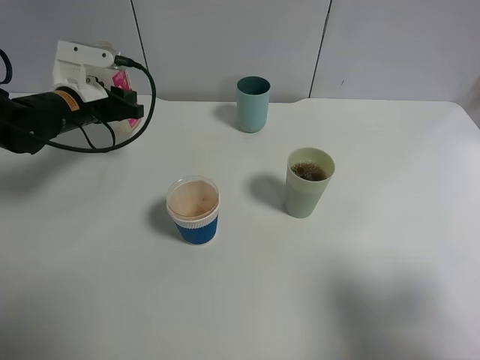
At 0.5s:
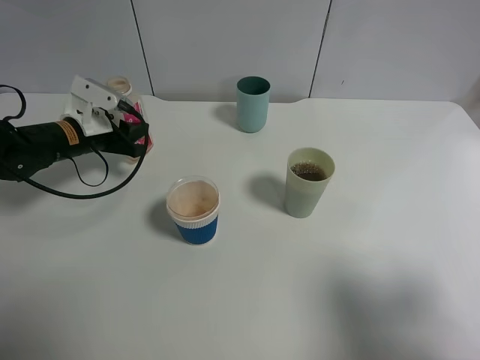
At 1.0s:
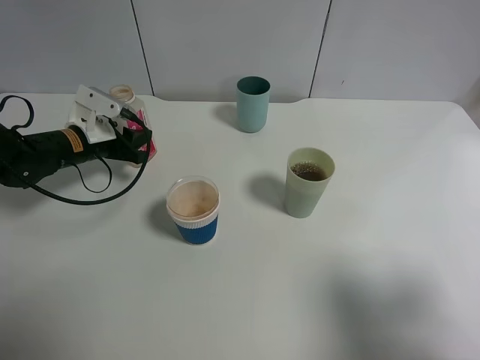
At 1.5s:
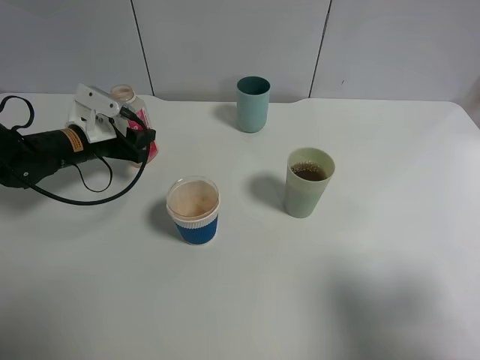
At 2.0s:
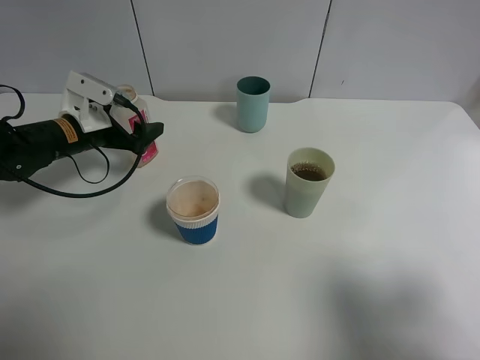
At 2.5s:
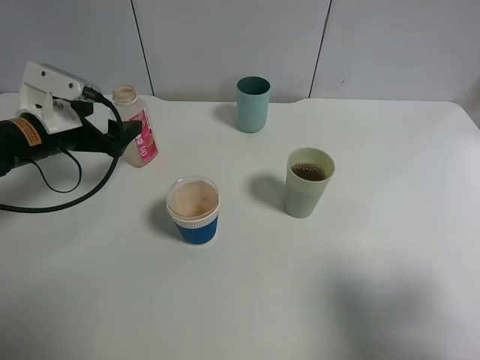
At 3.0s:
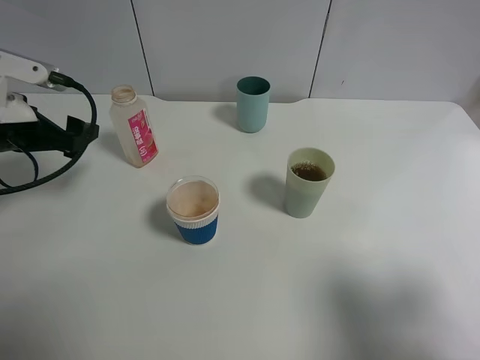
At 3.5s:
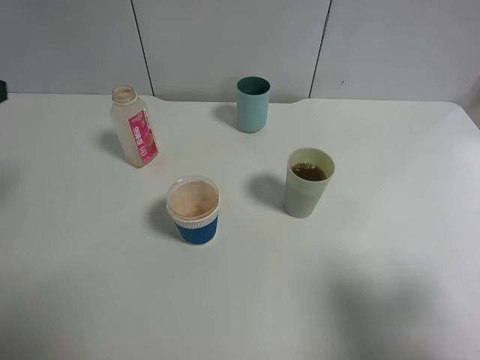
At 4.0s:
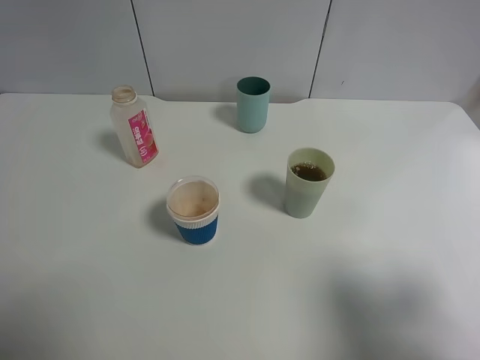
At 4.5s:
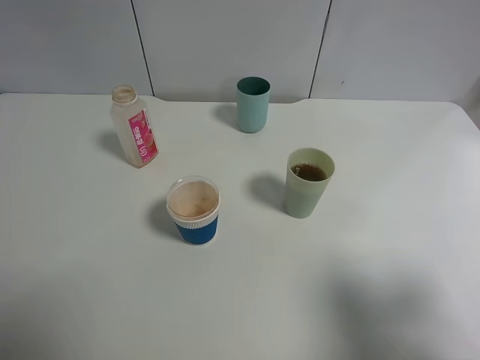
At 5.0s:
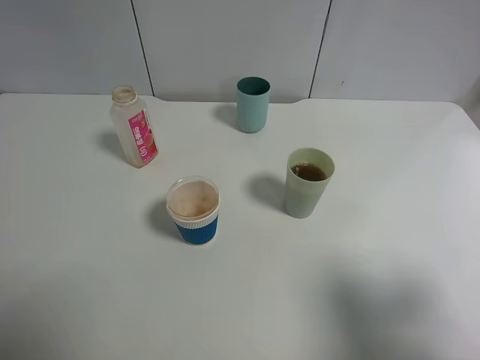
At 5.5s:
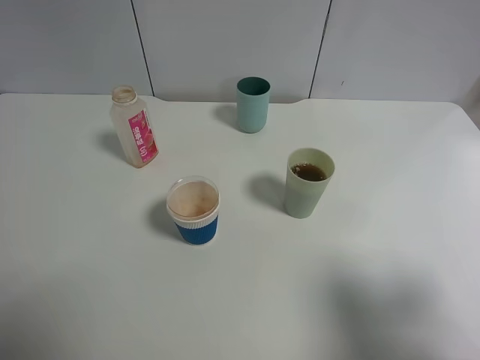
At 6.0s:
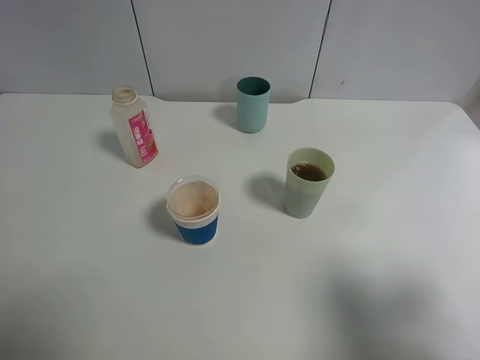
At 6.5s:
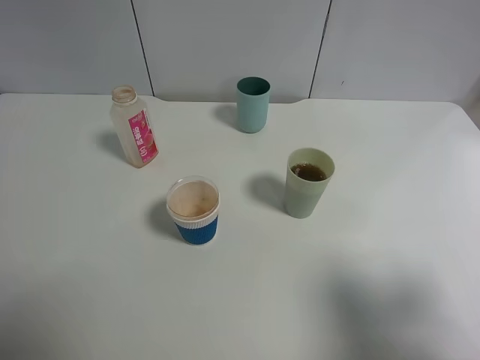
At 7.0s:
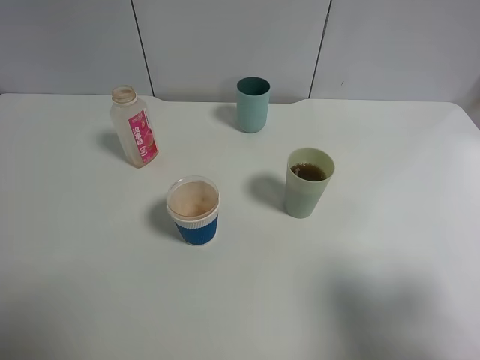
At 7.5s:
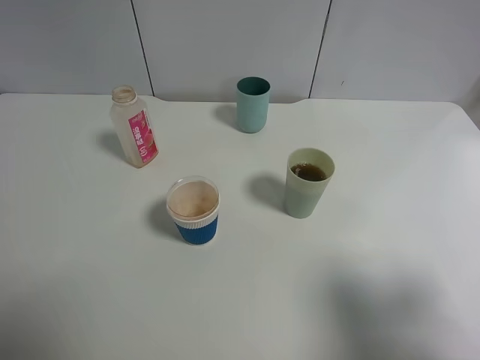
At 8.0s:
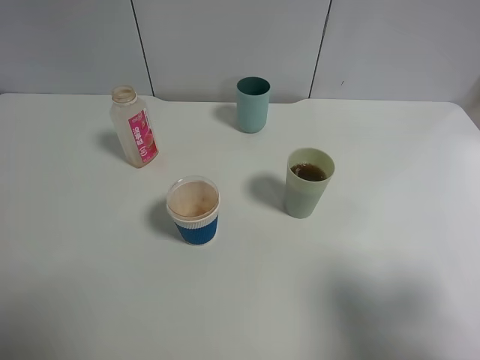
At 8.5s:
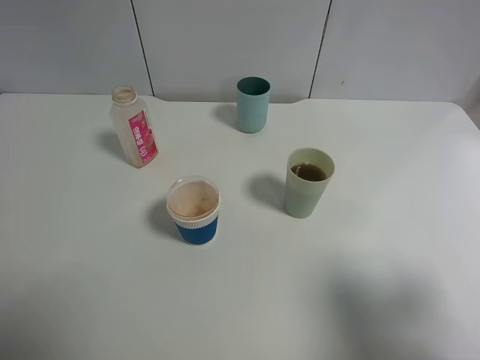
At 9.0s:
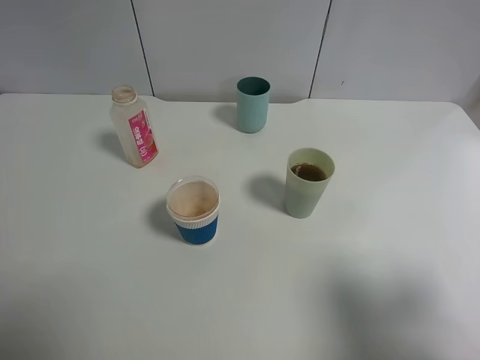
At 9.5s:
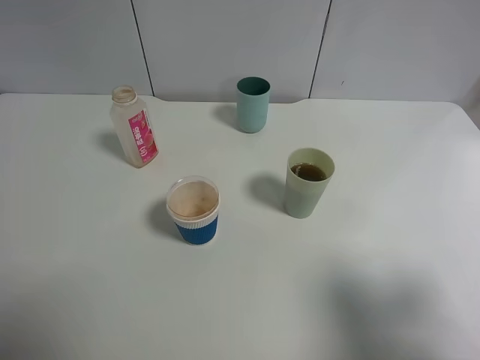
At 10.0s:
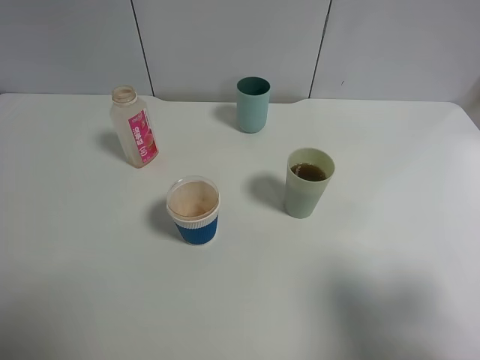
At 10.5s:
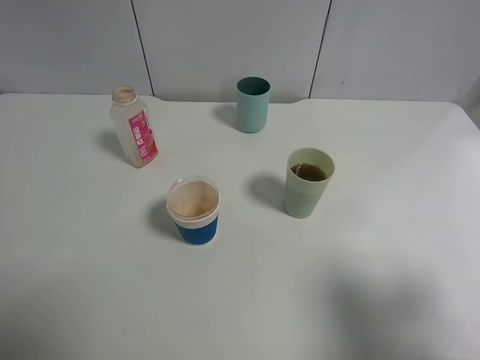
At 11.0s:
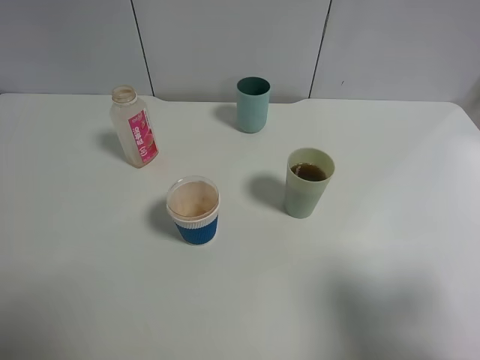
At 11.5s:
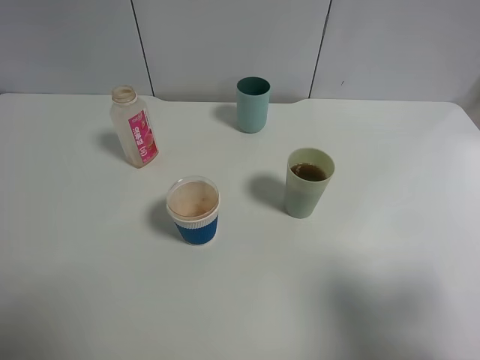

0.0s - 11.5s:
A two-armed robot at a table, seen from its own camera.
Task of the whole recording: use a gripper to hold the bottle of the drink and pour it into a random cup.
Step, 0.0s - 2.0s: Place the cranberry juice bottle on the table with the left gripper.
0.0s - 2.0s: The left gripper opens.
2.0s - 4.0s: The left gripper shifts some 35 cm backward and upward.
6.0s - 11.5s: Both grippers stay put.
